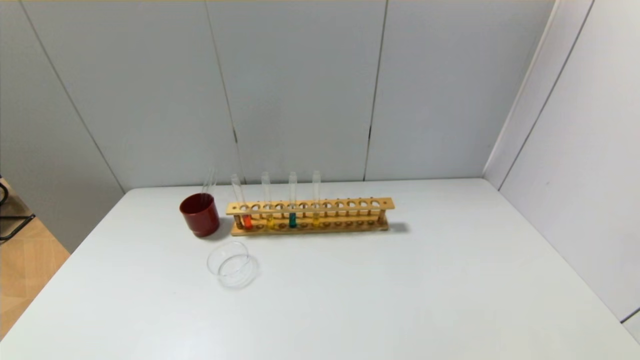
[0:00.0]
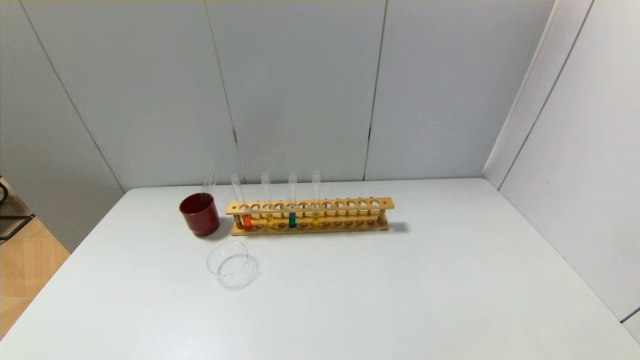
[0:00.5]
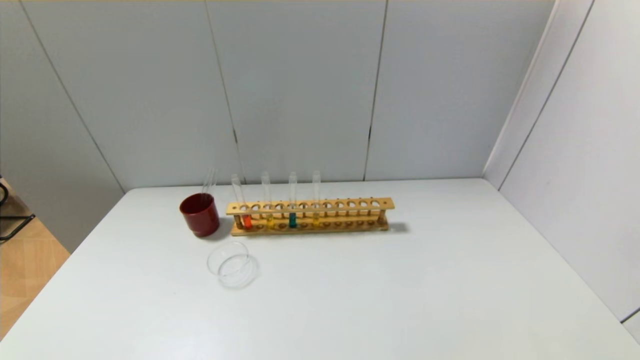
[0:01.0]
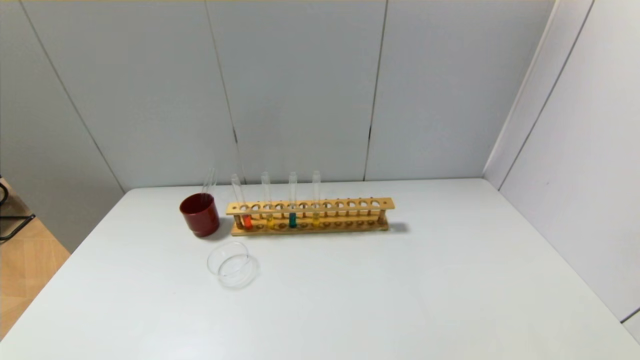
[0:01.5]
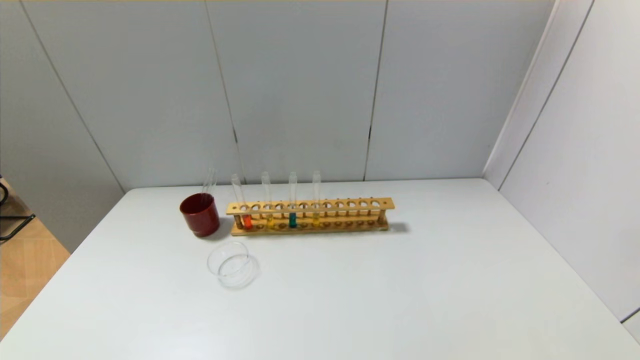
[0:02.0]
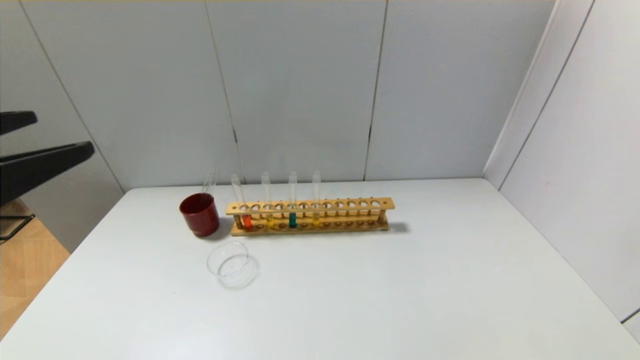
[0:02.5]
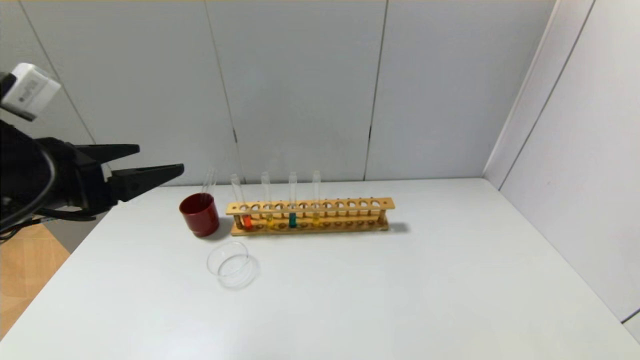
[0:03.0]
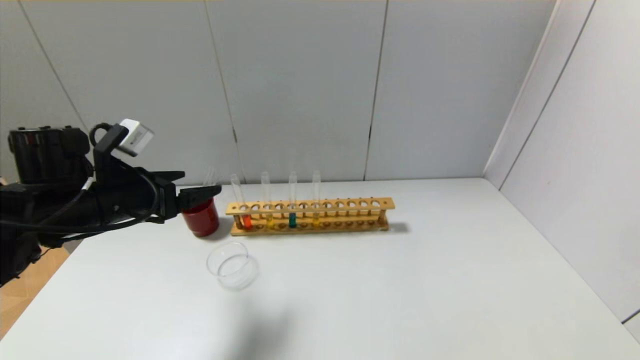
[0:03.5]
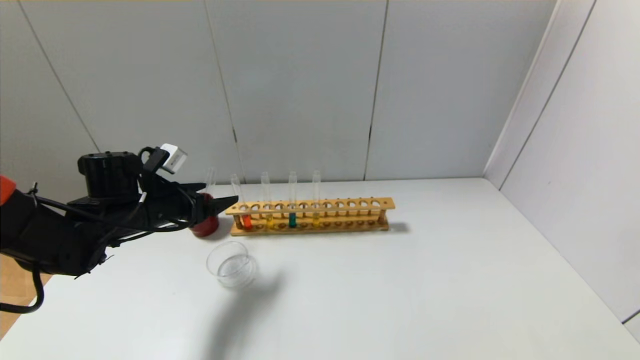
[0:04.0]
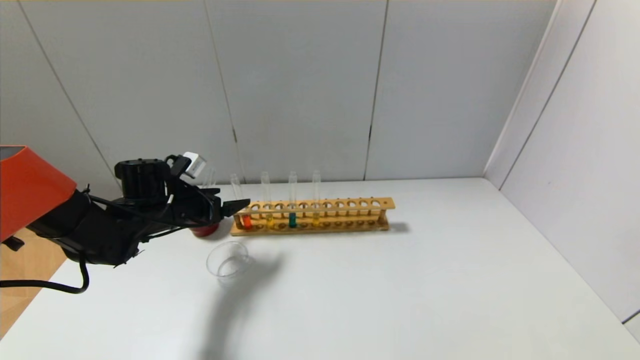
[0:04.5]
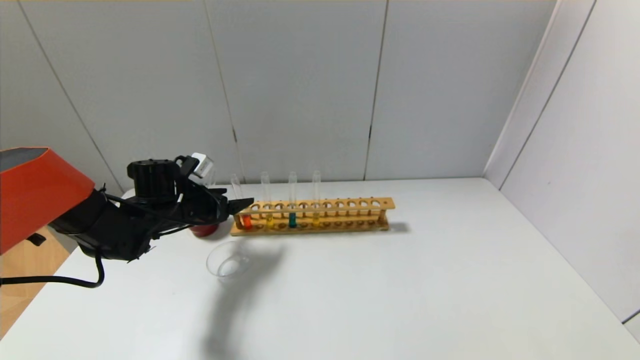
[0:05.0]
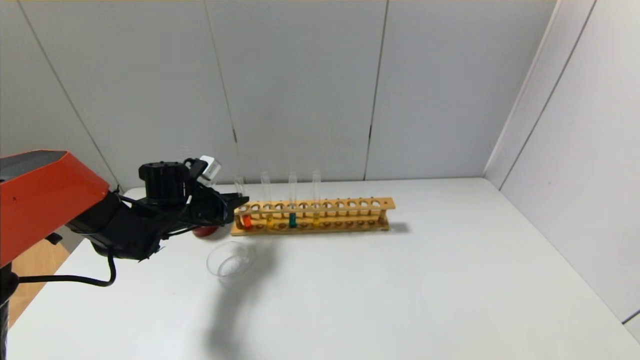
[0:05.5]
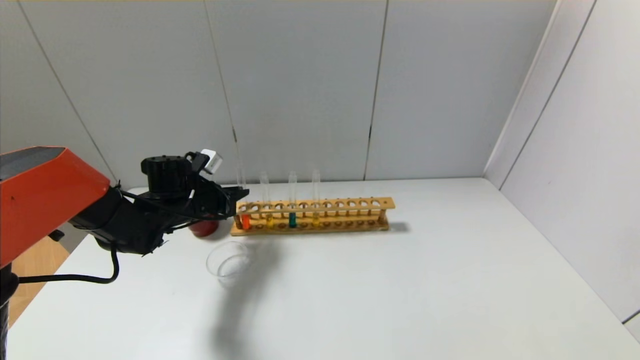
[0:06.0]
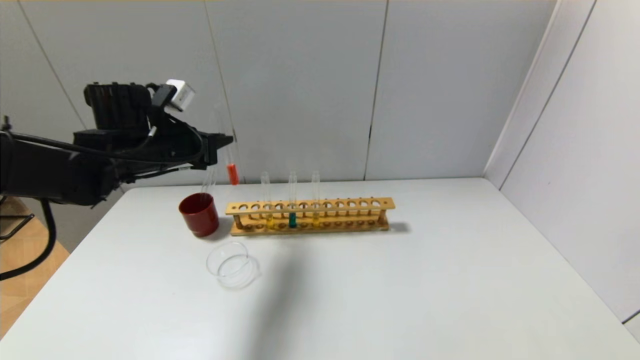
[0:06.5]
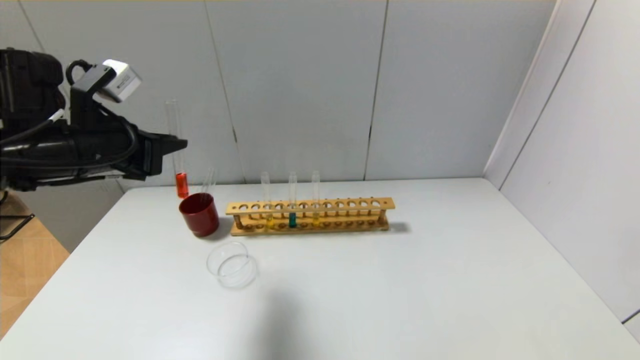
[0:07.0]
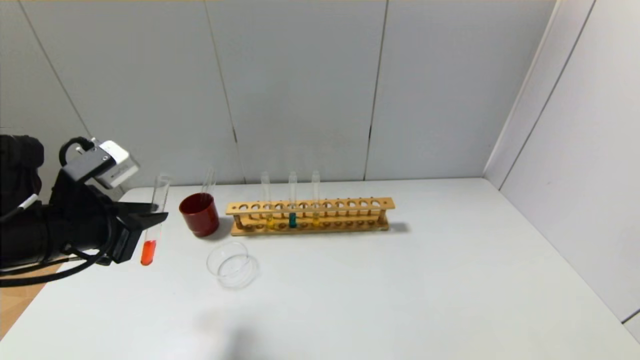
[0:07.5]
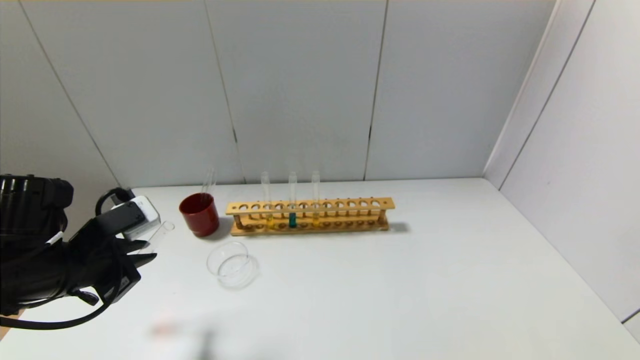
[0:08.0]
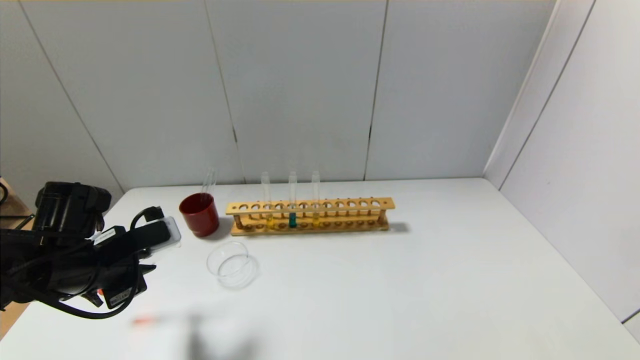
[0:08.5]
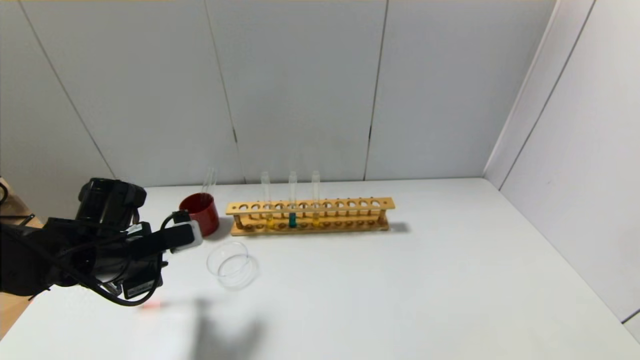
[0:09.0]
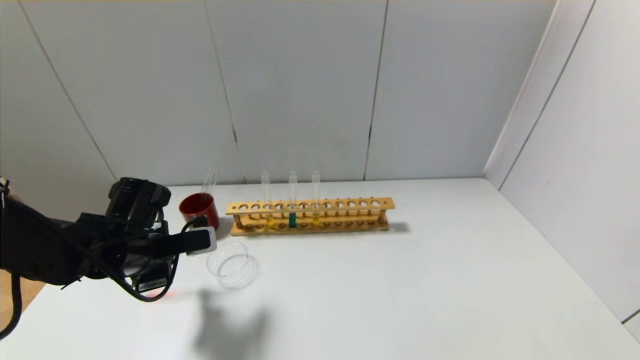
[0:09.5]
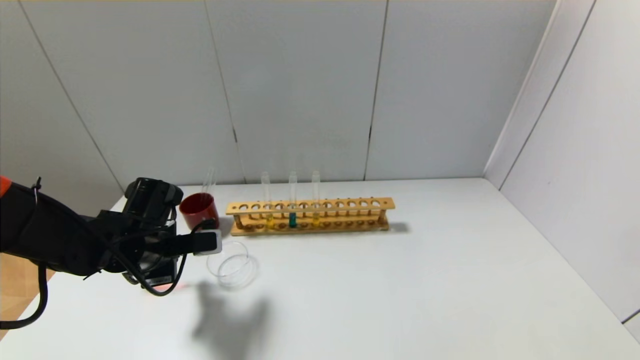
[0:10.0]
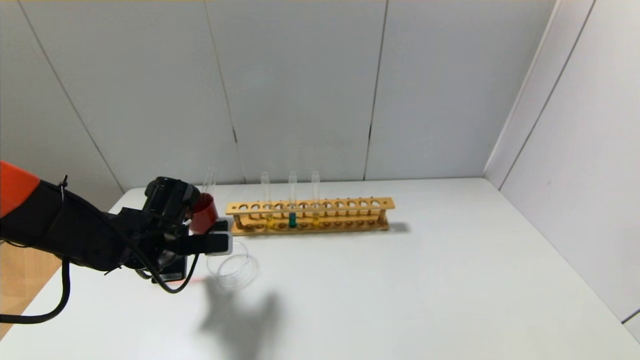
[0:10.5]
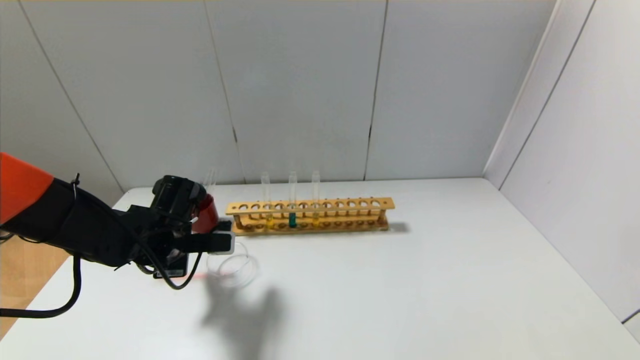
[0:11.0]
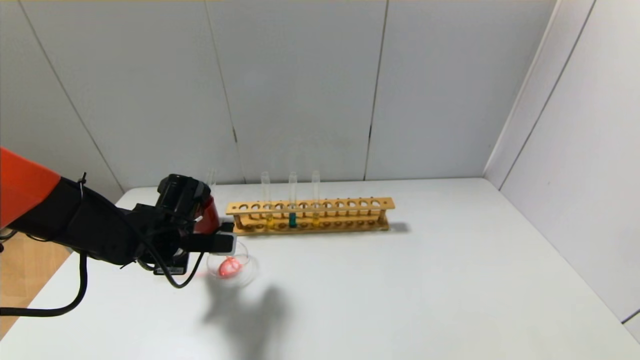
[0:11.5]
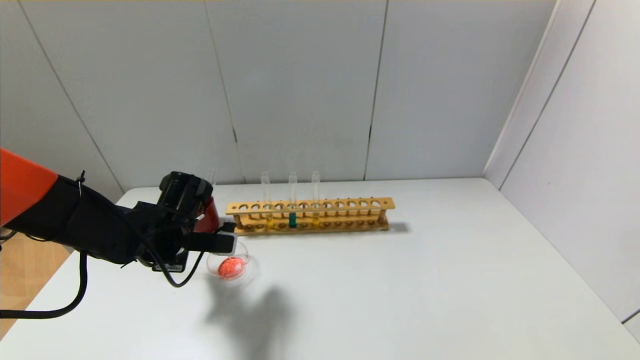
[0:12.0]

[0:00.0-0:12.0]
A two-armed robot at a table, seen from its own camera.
Step, 0:00.0 to 0:05.5: Grasp the red reagent with the left gripper.
0:02.0 to 0:04.0: The left gripper goes about 35 cm forward.
0:04.0 to 0:06.0: The left gripper shifts roughly 5 cm forward, and closes.
0:06.0 to 0:08.0: The left gripper heads backward, covering about 20 cm.
0:08.0 to 0:10.0: The left gripper goes about 10 cm forward and downward.
0:10.0 to 0:12.0: The grippers move only a little.

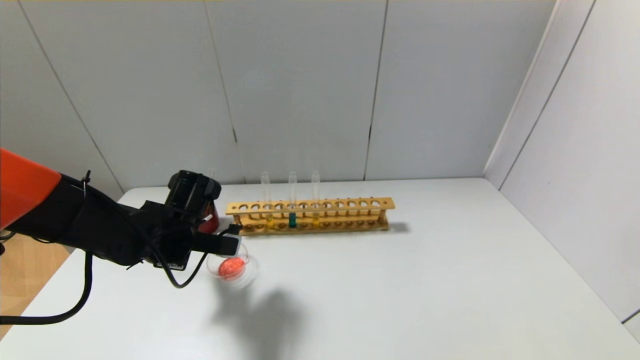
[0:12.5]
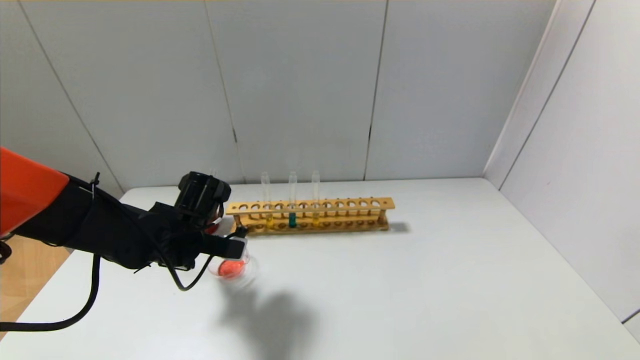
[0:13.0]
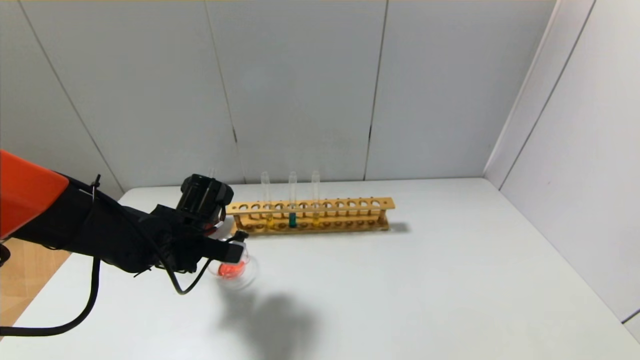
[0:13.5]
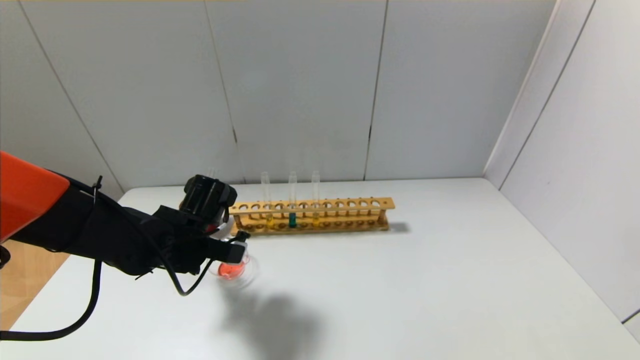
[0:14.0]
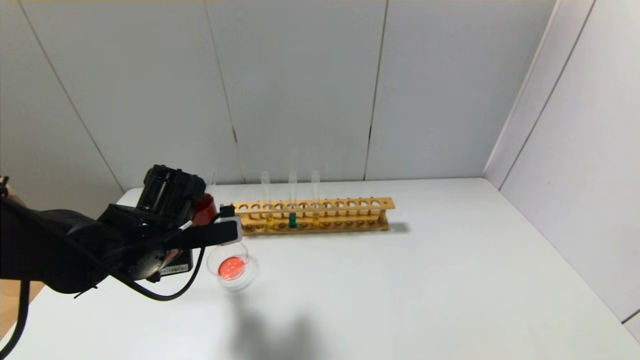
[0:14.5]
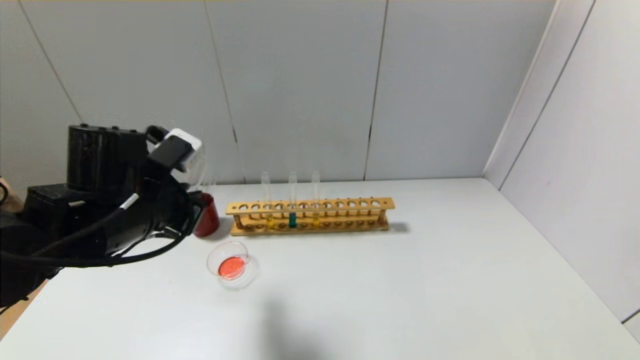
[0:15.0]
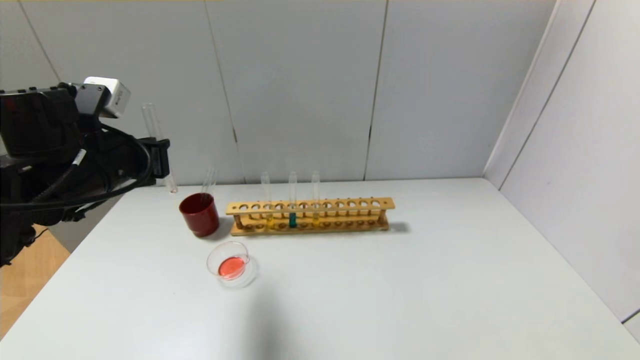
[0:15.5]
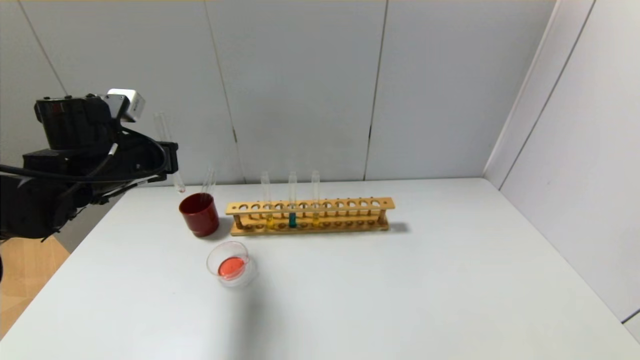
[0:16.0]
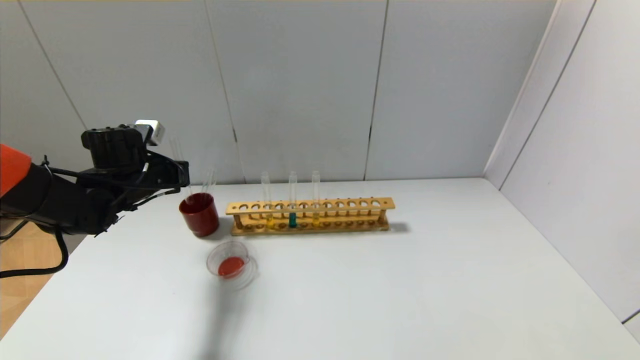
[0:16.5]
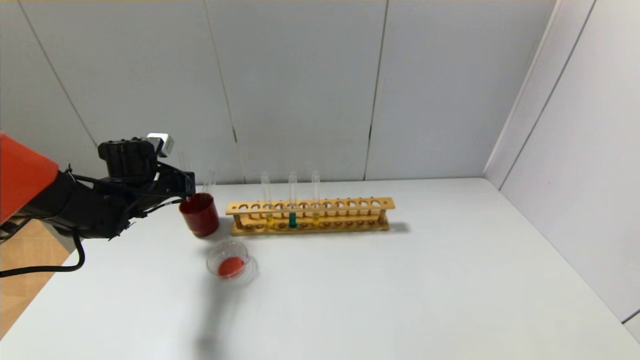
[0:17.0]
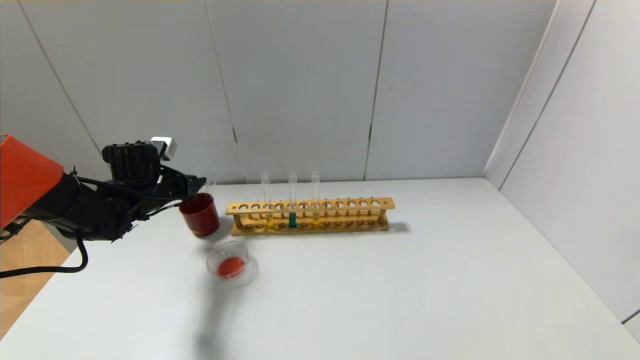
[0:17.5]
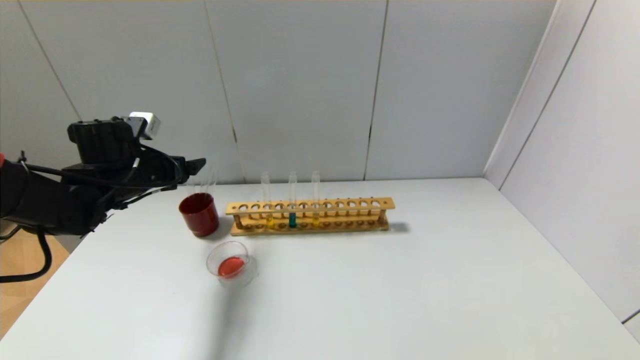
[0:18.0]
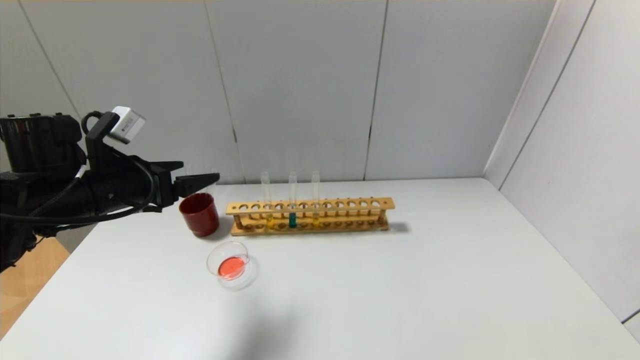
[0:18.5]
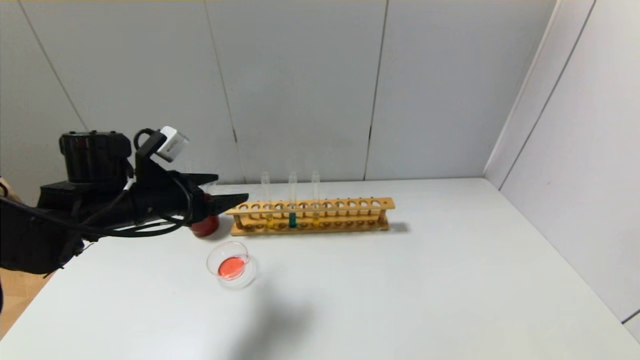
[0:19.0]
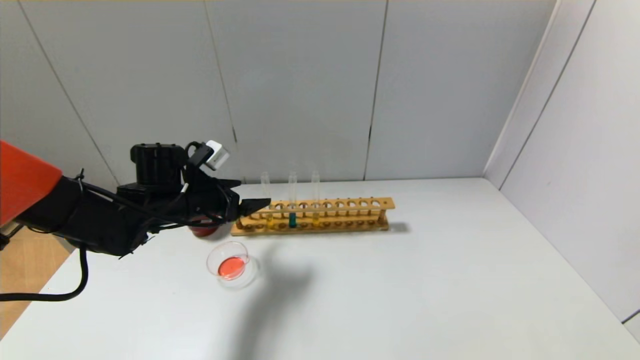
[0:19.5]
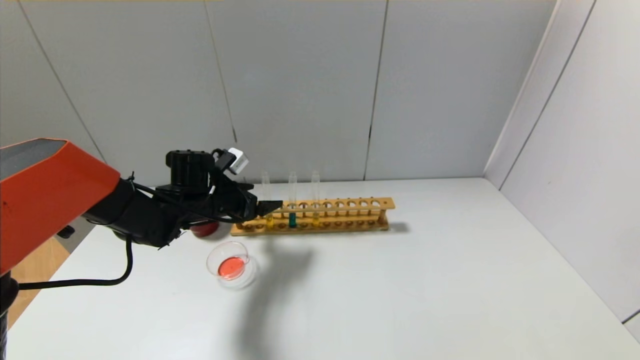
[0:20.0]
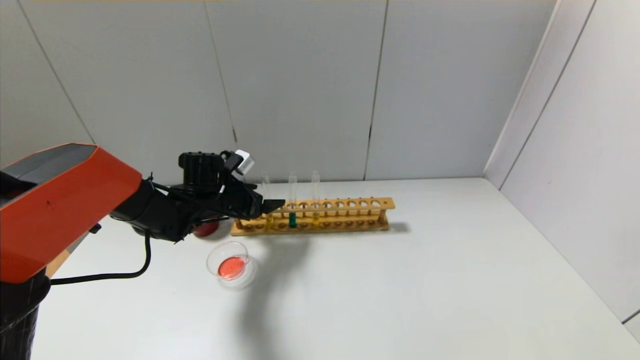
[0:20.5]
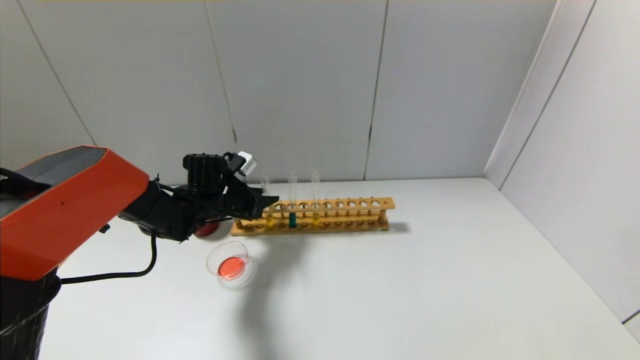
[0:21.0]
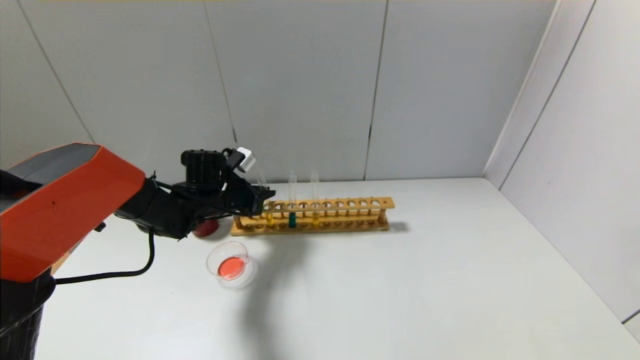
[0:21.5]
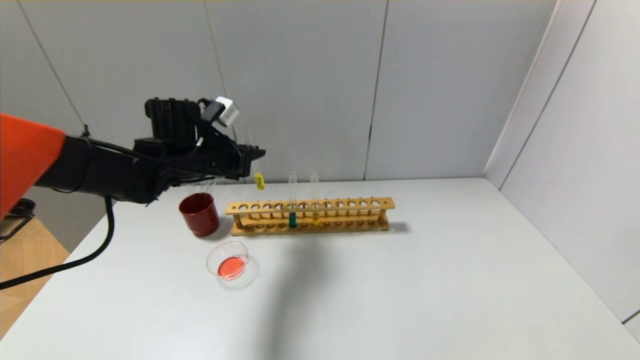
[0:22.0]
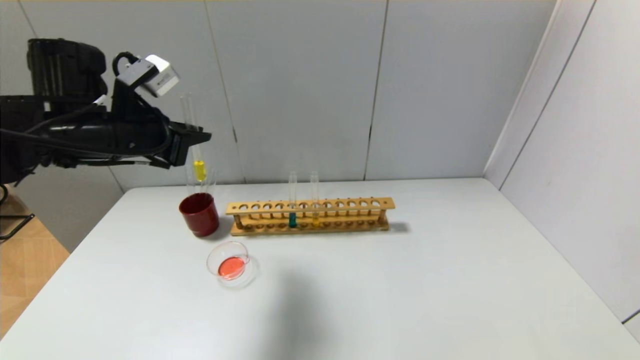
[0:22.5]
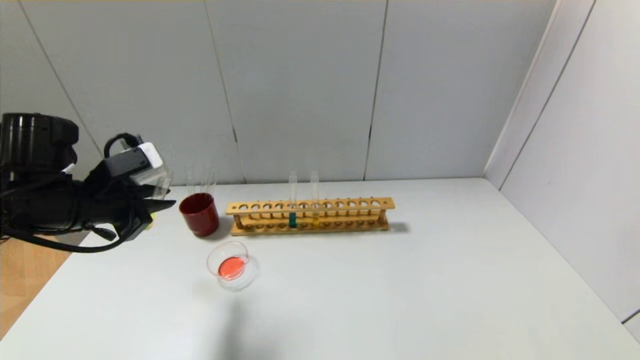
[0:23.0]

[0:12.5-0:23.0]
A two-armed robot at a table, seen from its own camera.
Step, 0:14.5 to 0:17.0: Place the test tube into the brown cup with the left gripper.
Step, 0:17.5 to 0:21.0: Grasp the yellow reagent with the left gripper.
0:12.5 to 0:14.5: The left gripper shifts by roughly 5 cm.
0:14.5 to 0:16.5: The left gripper moves forward and to the left, roughly 15 cm.
0:16.5 to 0:19.0: The left gripper heads backward and to the right, covering roughly 10 cm, and opens its fingers.
0:19.0 to 0:21.0: The left gripper travels forward, downward and to the right by about 15 cm, and closes up.
0:21.0 to 0:23.0: The left gripper heads backward, upward and to the left, covering some 20 cm.
